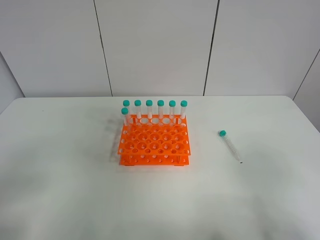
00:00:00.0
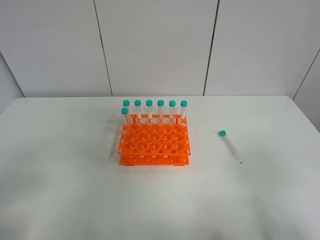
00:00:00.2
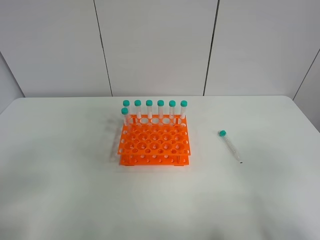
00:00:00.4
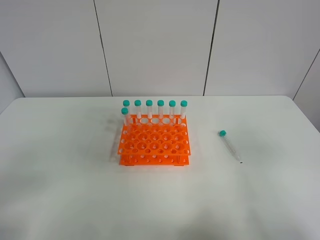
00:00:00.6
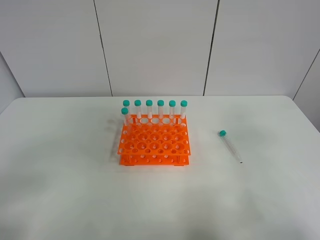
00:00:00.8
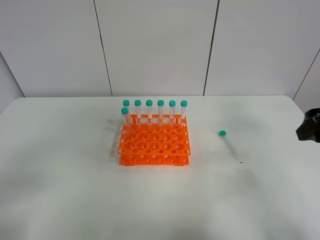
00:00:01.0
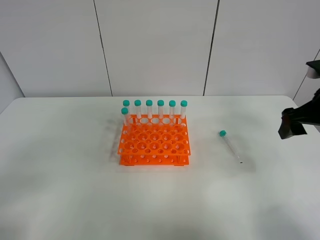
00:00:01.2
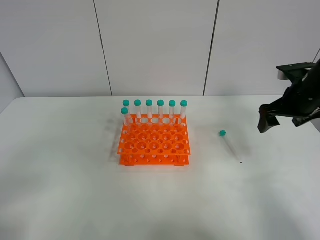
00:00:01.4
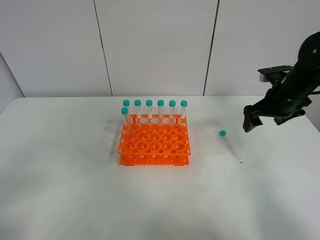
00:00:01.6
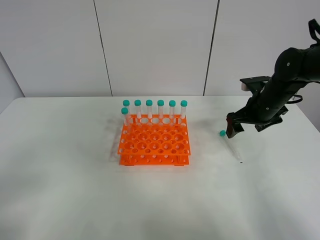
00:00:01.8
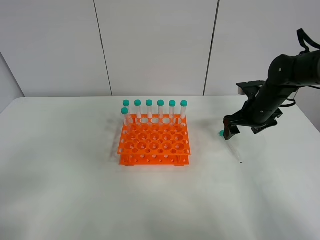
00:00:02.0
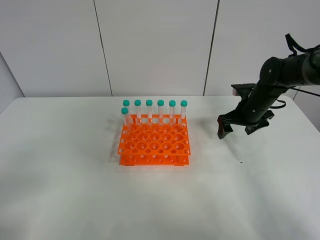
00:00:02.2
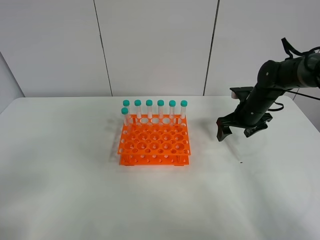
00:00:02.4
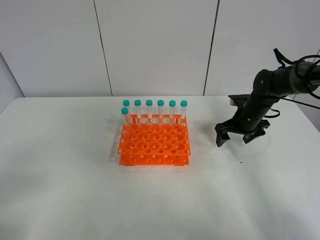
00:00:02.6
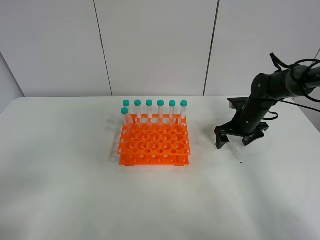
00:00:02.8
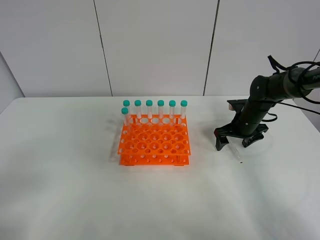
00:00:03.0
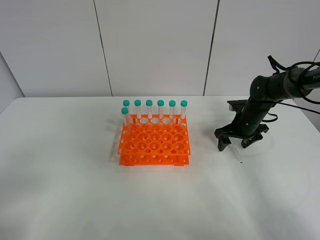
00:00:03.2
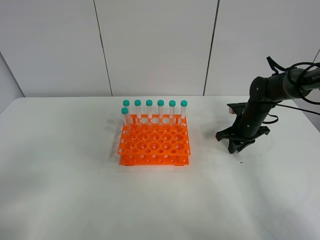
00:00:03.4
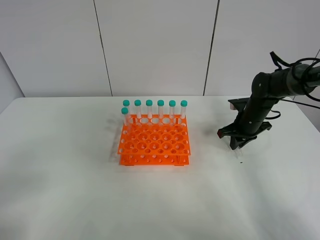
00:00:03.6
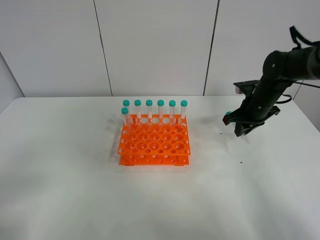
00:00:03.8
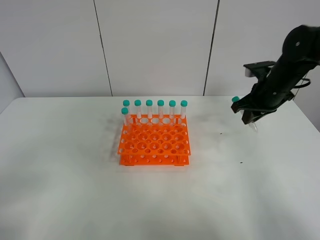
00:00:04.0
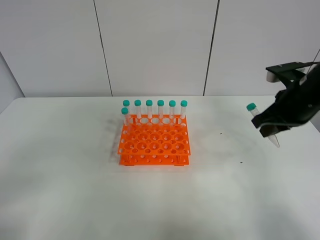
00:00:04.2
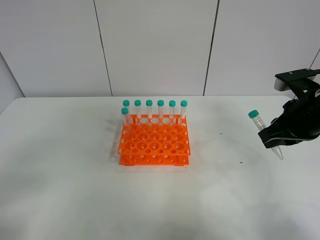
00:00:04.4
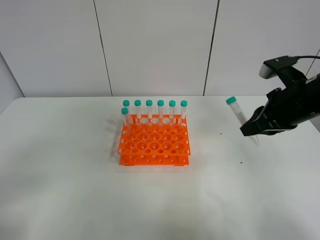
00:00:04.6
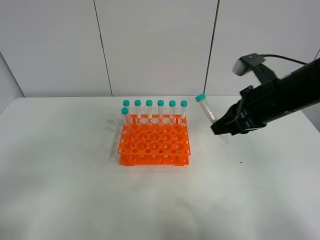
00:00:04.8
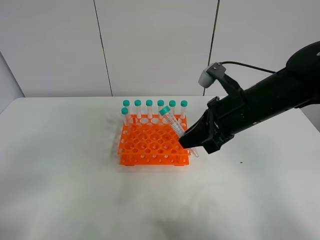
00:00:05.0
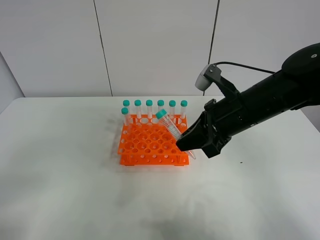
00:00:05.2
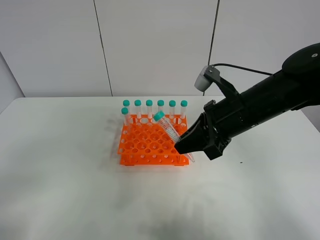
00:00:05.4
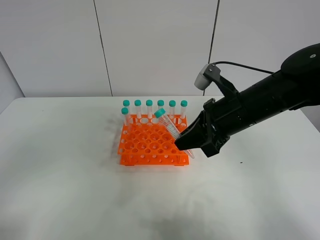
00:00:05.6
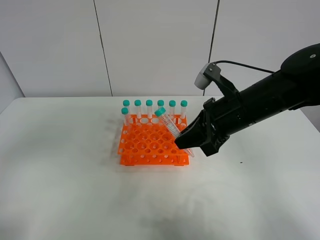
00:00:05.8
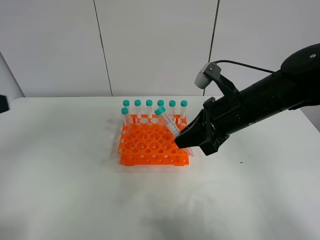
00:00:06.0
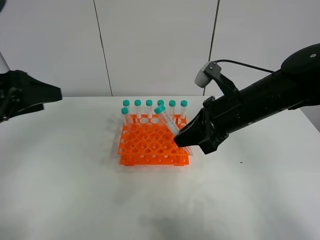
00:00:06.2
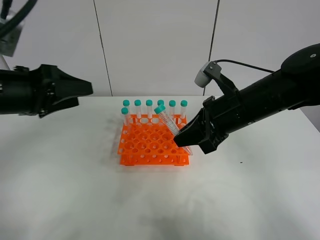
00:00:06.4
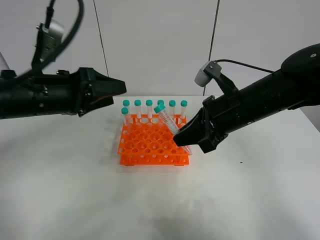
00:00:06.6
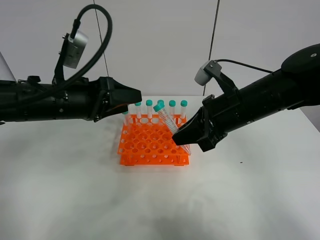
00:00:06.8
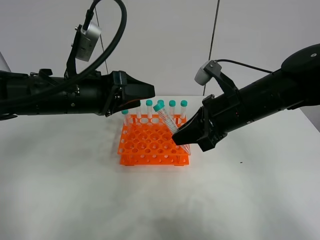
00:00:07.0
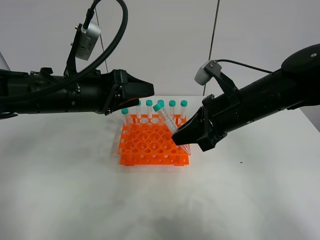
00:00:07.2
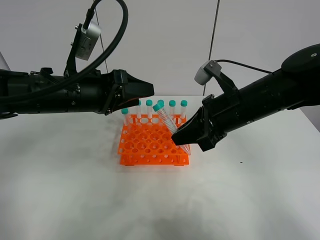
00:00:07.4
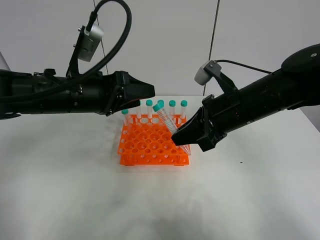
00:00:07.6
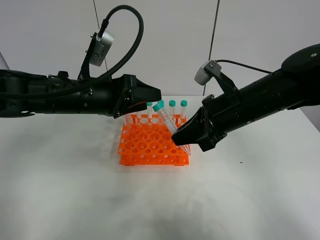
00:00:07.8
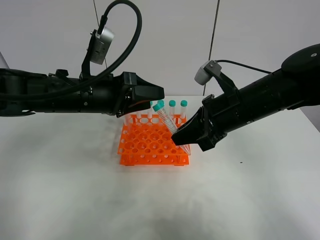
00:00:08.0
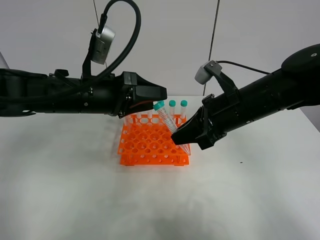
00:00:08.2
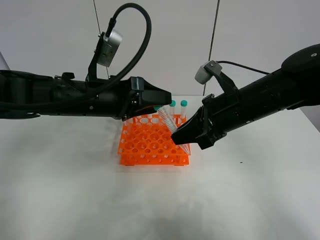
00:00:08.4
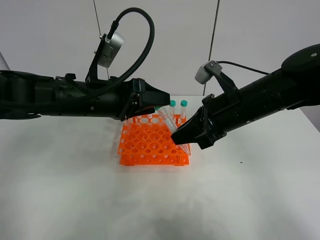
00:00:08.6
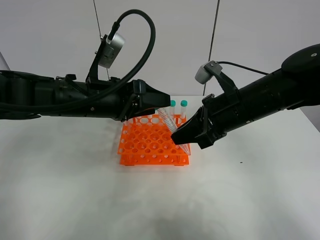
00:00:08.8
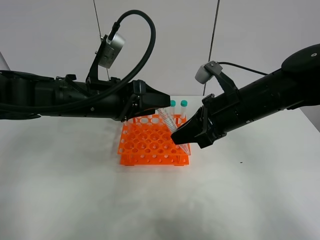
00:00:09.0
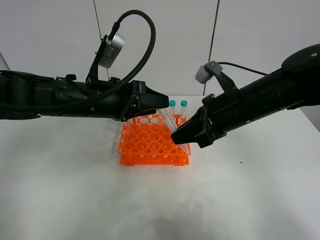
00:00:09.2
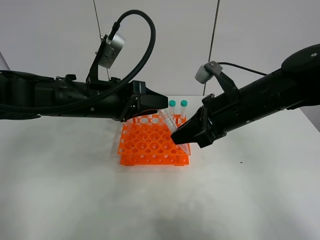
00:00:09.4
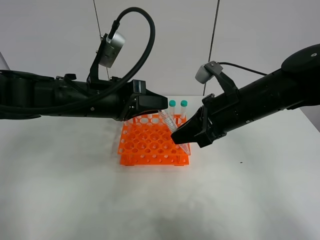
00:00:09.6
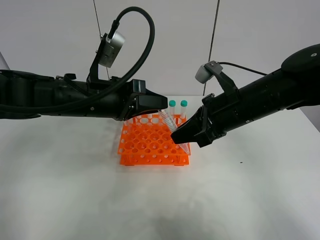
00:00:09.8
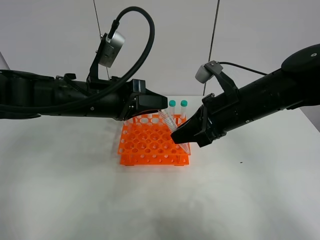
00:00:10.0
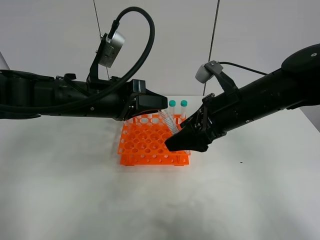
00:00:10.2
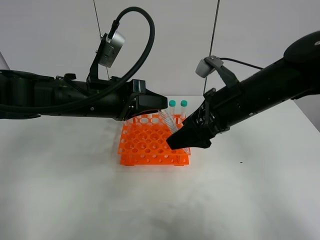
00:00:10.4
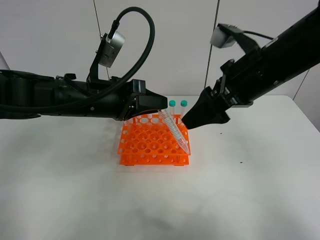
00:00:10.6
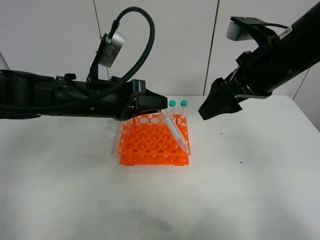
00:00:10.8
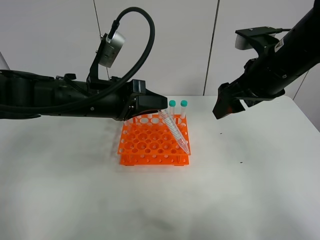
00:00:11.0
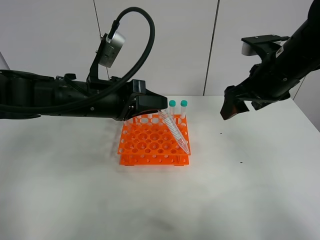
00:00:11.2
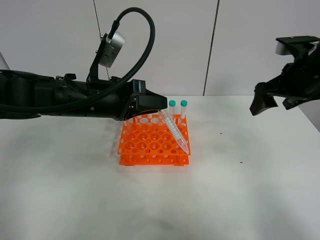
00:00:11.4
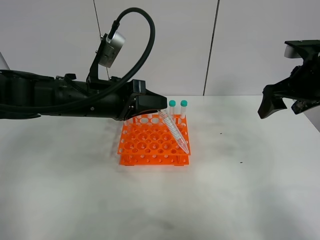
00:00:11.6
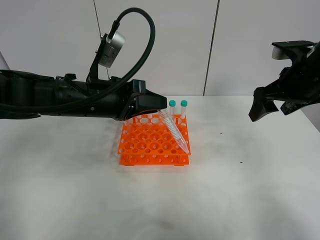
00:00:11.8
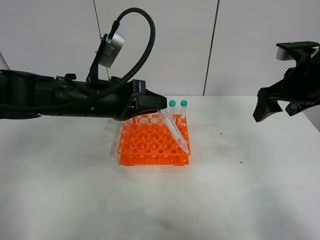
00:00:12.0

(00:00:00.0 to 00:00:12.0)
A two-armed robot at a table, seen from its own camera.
Task of the whole recording: Put the test tube on the table back onto the test tube rack.
Step, 00:00:00.0 - 00:00:04.0: Pick up the test tube with the right gripper.
Step, 00:00:04.2 - 00:00:10.8: Move the test tube from the right gripper to the left gripper.
00:00:00.0 - 00:00:01.6: The right gripper travels forward by approximately 35 cm.
00:00:01.6 - 00:00:03.0: The right gripper goes roughly 10 cm downward and forward.
00:00:03.0 - 00:00:04.4: The right gripper moves backward and upward, approximately 25 cm, and closes up.
00:00:04.4 - 00:00:06.0: The right gripper heads to the left, covering some 10 cm. Meanwhile the left gripper travels forward and upward by about 15 cm.
00:00:06.0 - 00:00:07.6: The left gripper goes approximately 20 cm to the right, forward and downward.
00:00:07.6 - 00:00:09.0: There are only small adjustments of the grippers.
00:00:09.0 - 00:00:10.4: The left gripper closes its fingers, while the right gripper opens.
00:00:10.4 - 00:00:12.0: The right gripper moves to the right, roughly 15 cm.

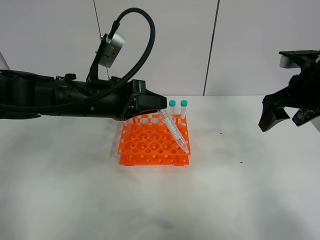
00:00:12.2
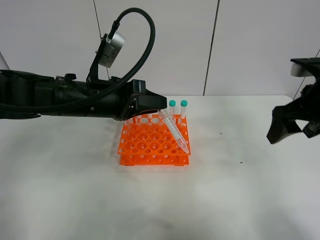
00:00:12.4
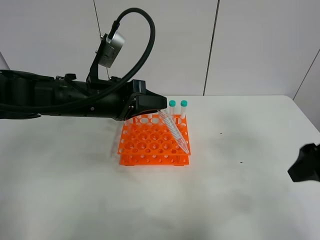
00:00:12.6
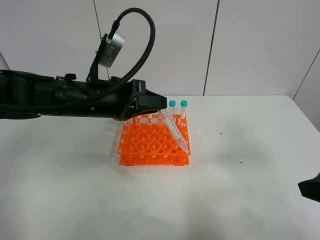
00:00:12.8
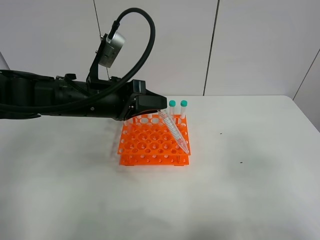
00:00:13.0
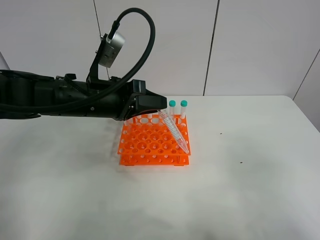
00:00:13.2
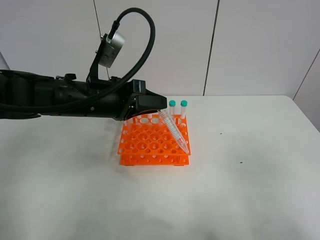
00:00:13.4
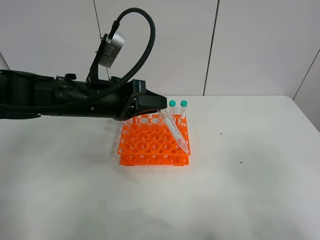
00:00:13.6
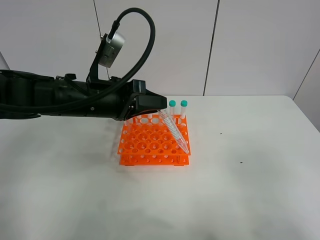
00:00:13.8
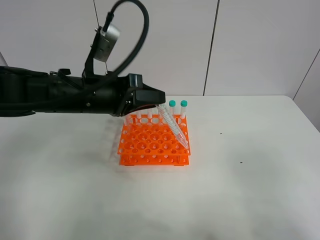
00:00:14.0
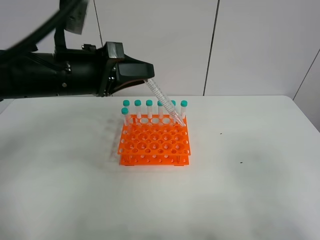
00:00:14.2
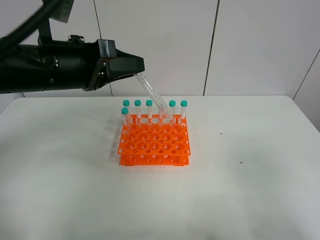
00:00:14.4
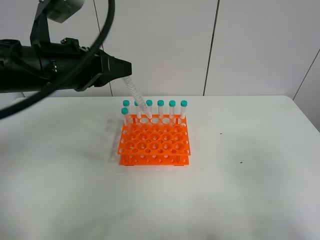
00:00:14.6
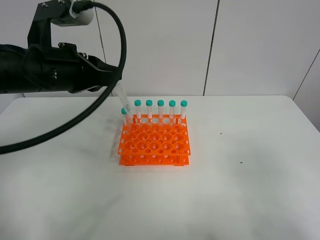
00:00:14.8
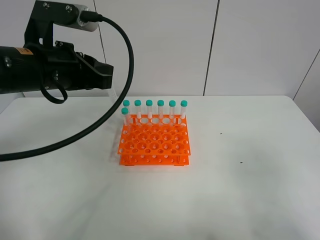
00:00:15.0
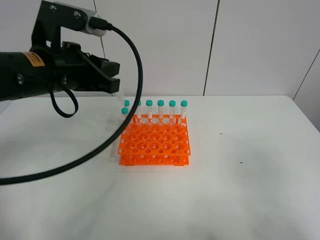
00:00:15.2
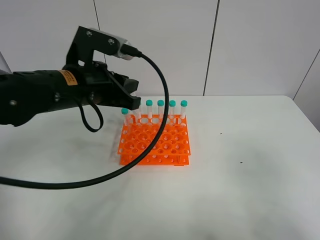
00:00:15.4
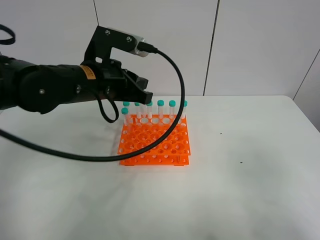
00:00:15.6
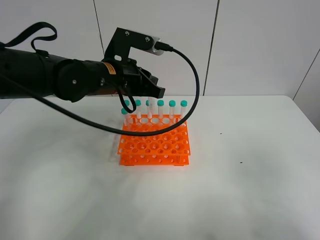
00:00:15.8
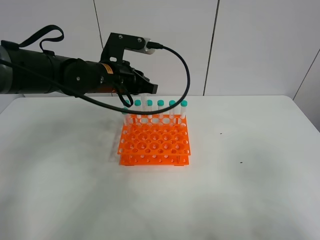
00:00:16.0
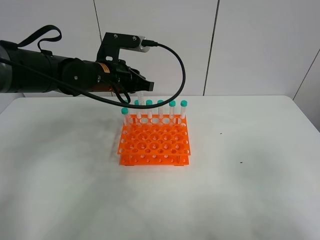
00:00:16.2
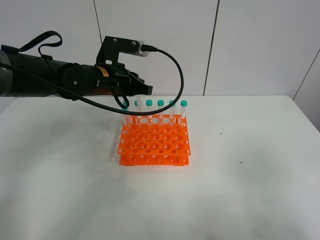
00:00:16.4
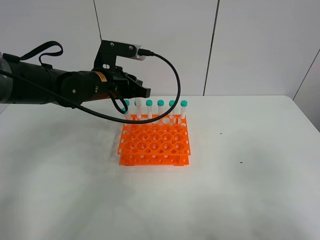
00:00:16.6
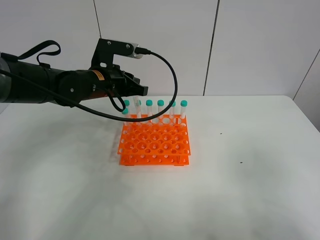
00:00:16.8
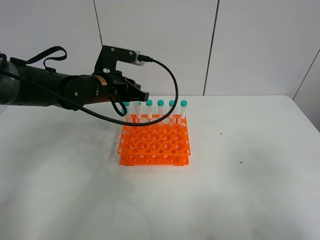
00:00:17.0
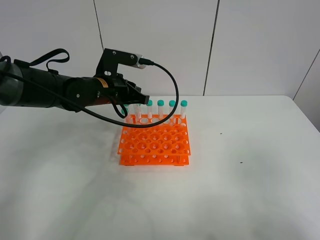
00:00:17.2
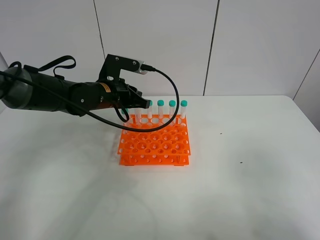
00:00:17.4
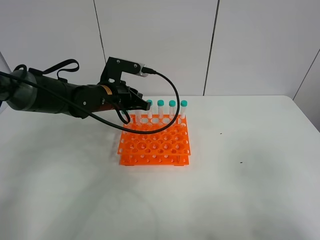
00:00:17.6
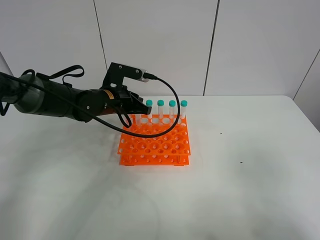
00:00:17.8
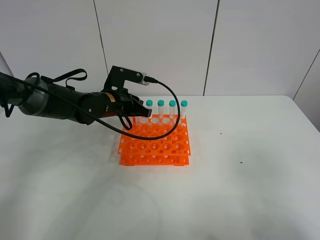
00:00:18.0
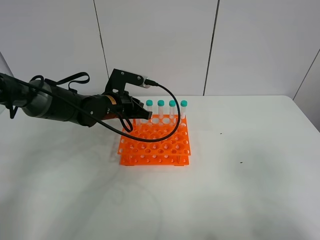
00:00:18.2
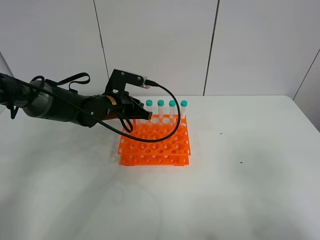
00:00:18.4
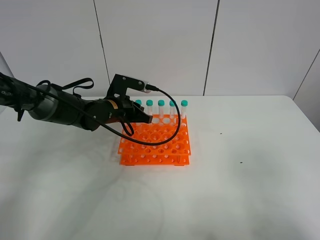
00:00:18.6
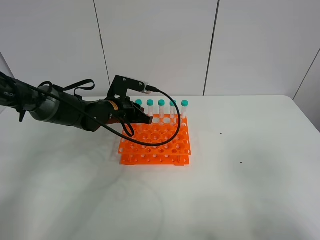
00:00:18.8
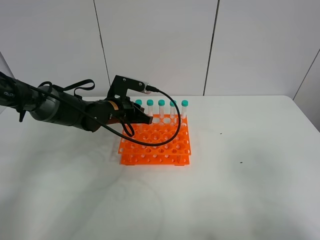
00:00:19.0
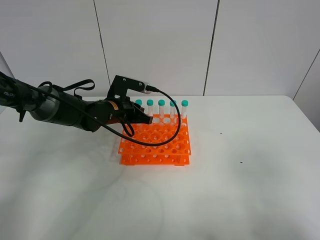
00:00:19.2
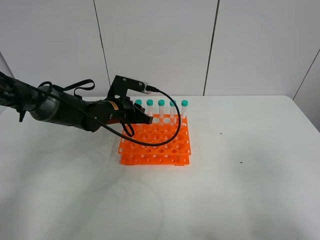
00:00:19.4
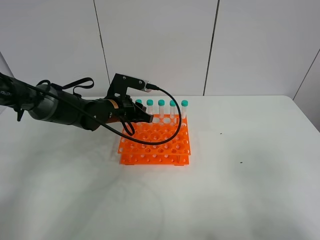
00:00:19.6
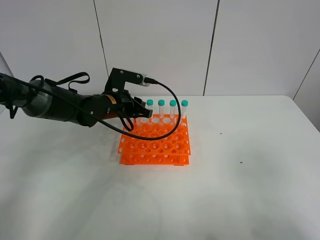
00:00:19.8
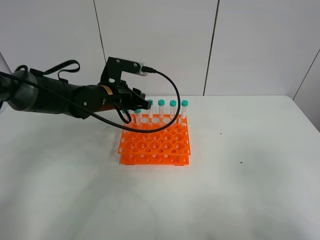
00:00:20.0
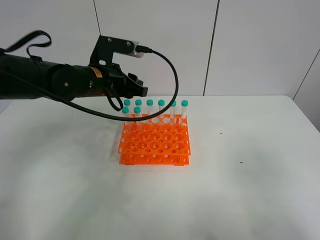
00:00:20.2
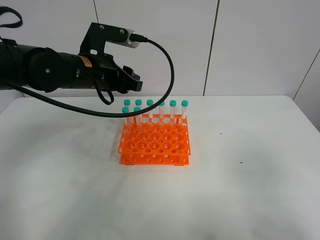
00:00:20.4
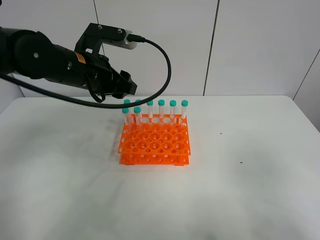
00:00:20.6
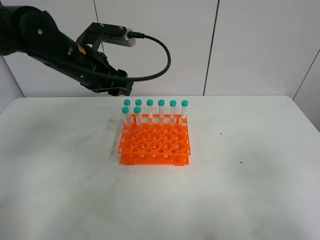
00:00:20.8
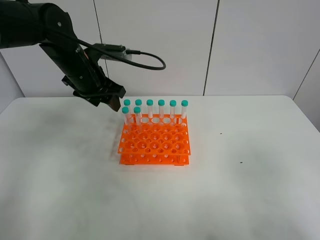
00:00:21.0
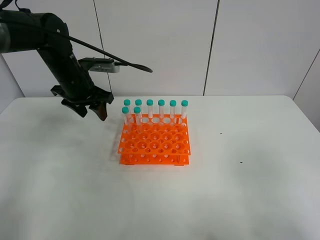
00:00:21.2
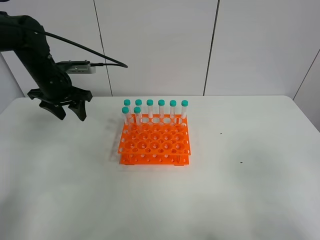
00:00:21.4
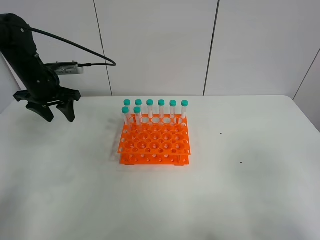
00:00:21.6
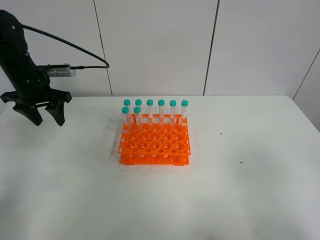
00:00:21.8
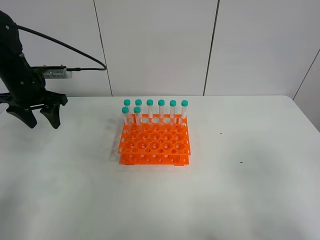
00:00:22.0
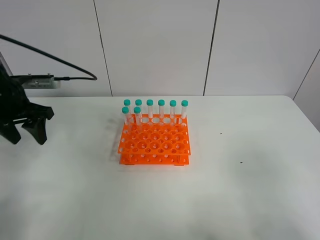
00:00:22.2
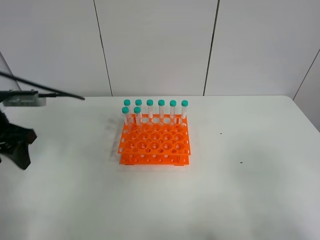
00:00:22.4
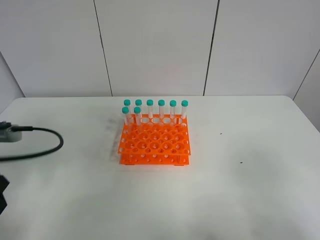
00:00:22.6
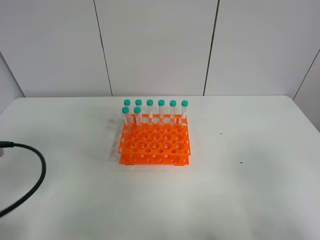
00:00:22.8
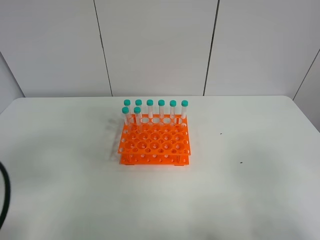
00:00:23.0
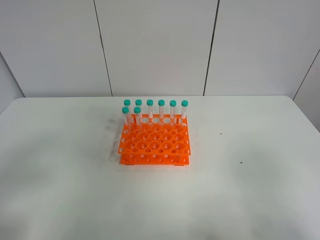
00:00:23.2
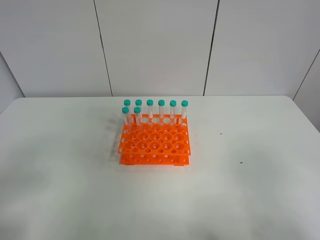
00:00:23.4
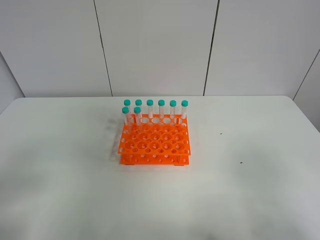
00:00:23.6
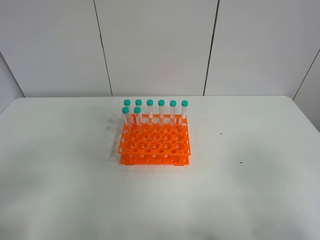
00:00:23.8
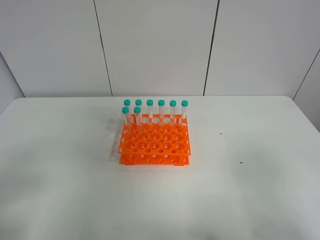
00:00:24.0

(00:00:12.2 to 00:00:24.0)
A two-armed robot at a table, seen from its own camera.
Task of the whole recording: Put the test tube on the table back onto the test tube rack.
Step, 00:00:12.2 - 00:00:20.4: Place the test tube on the test tube rack with the left gripper.
00:00:12.2 - 00:00:13.6: The right gripper heads backward, covering roughly 30 cm.
00:00:13.6 - 00:00:15.2: The left gripper is displaced upward by roughly 5 cm.
00:00:15.2 - 00:00:16.6: The left gripper moves forward and downward, roughly 15 cm.
00:00:16.6 - 00:00:18.2: The left gripper is displaced downward by about 5 cm.
00:00:18.2 - 00:00:19.6: The left gripper opens.
00:00:19.6 - 00:00:21.0: The left gripper shifts some 10 cm upward and to the left, and opens.
00:00:21.0 - 00:00:22.6: The left gripper travels backward and to the left by approximately 25 cm.
00:00:22.6 - 00:00:24.0: The left gripper goes some 15 cm backward.
